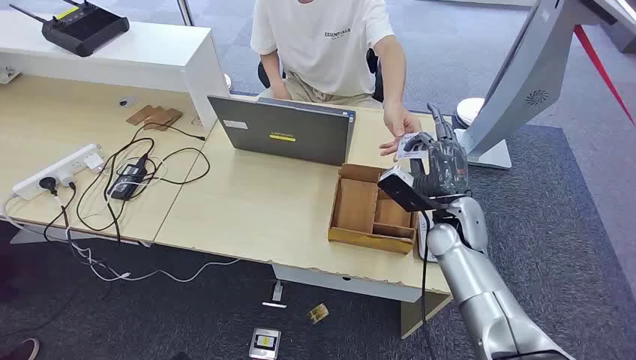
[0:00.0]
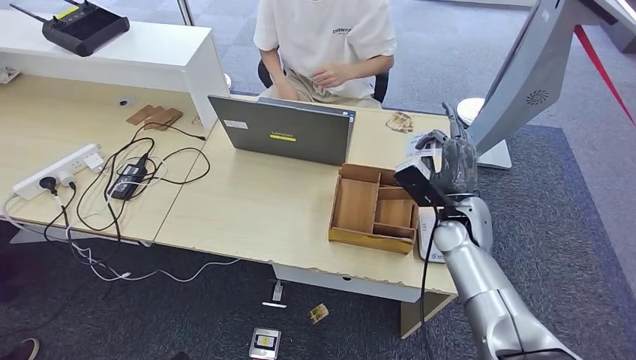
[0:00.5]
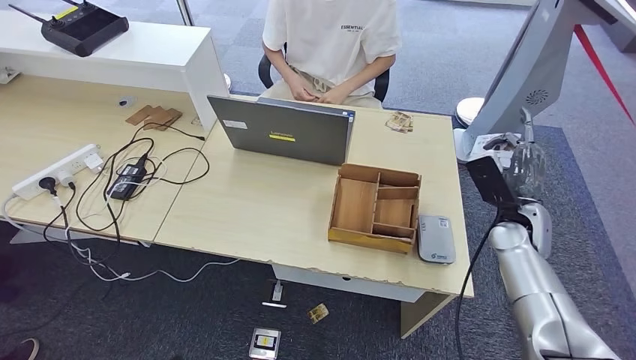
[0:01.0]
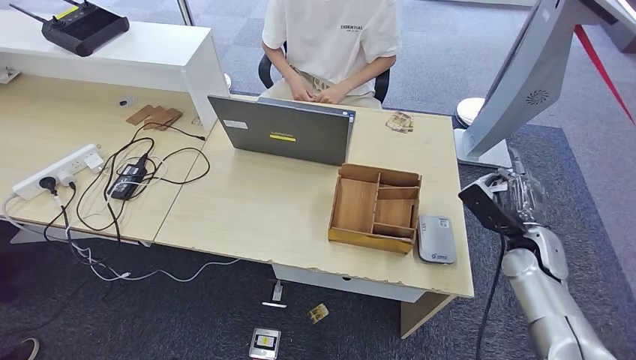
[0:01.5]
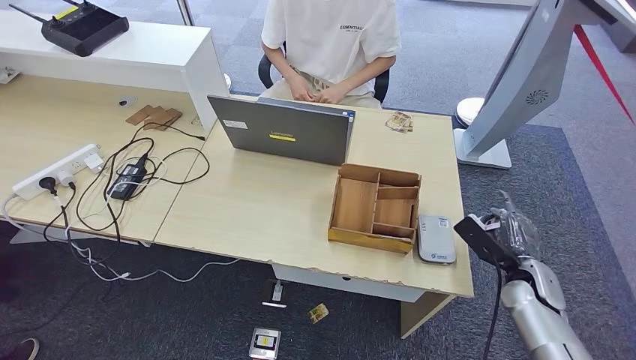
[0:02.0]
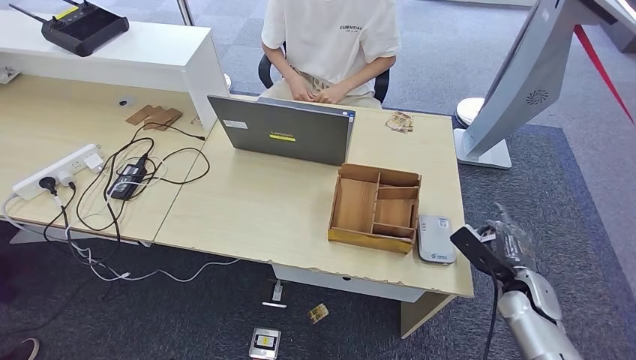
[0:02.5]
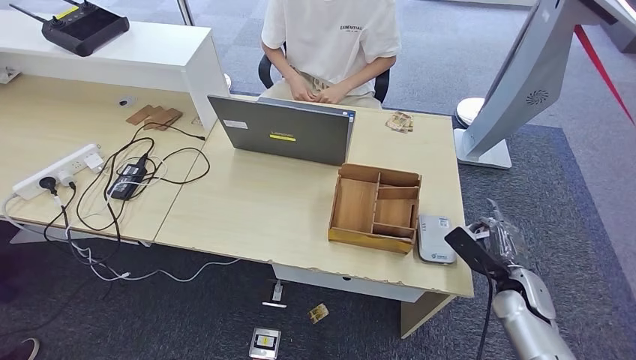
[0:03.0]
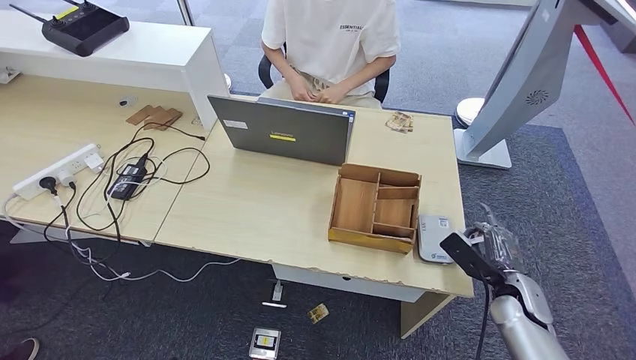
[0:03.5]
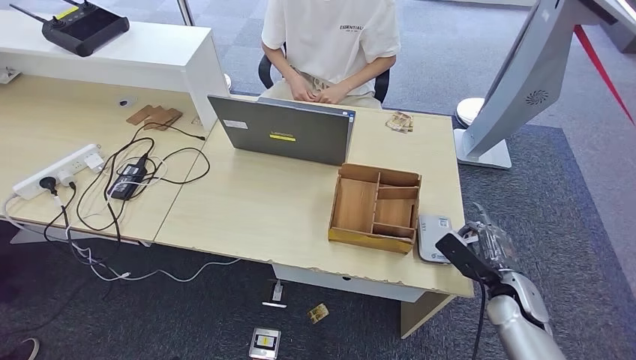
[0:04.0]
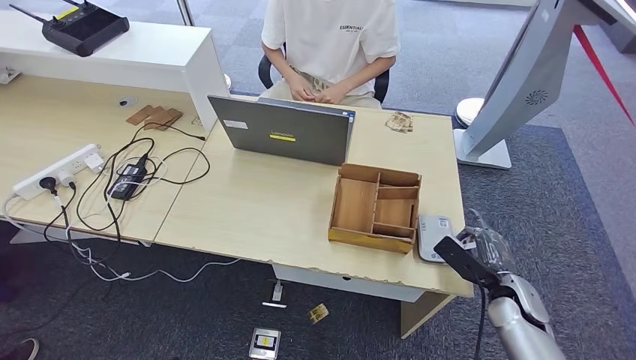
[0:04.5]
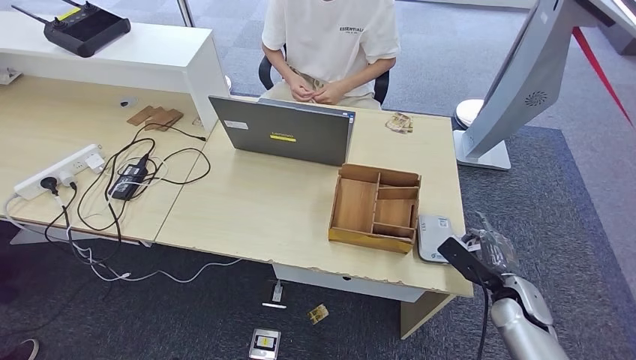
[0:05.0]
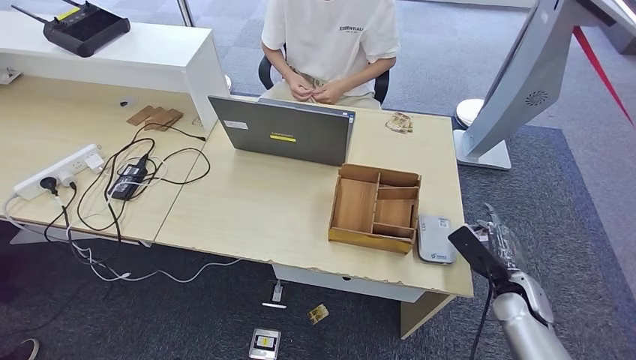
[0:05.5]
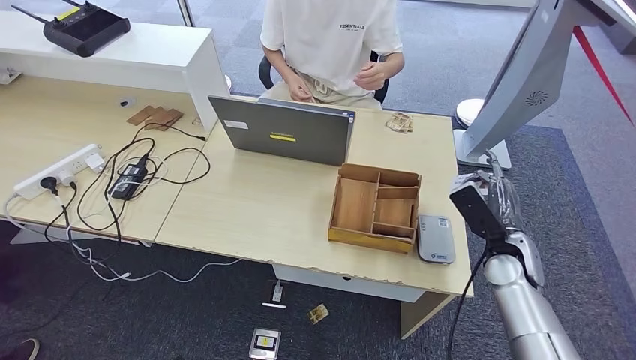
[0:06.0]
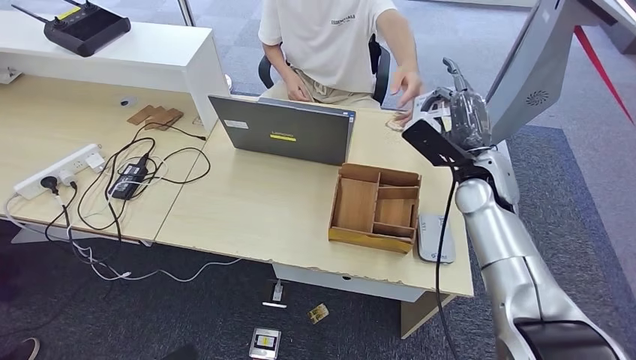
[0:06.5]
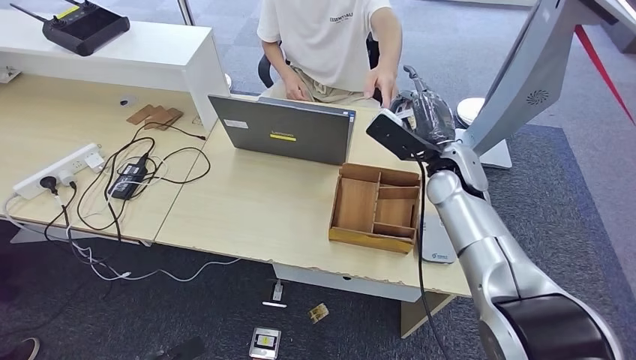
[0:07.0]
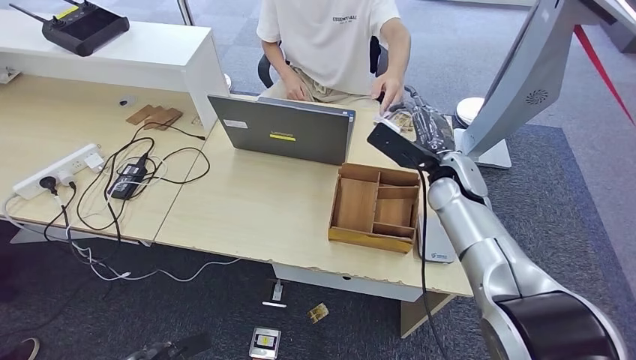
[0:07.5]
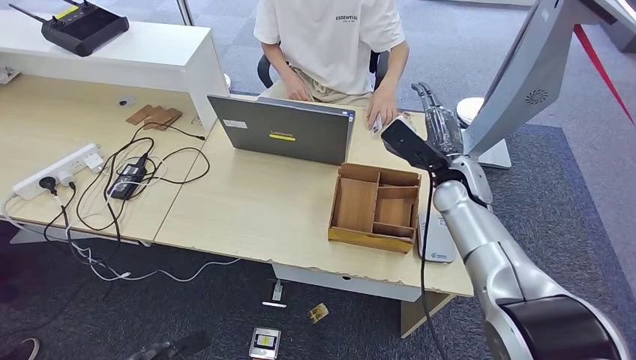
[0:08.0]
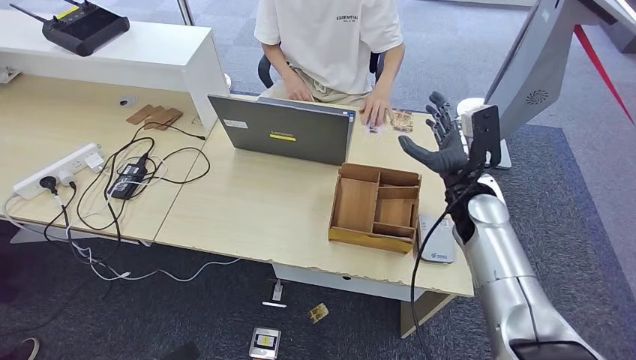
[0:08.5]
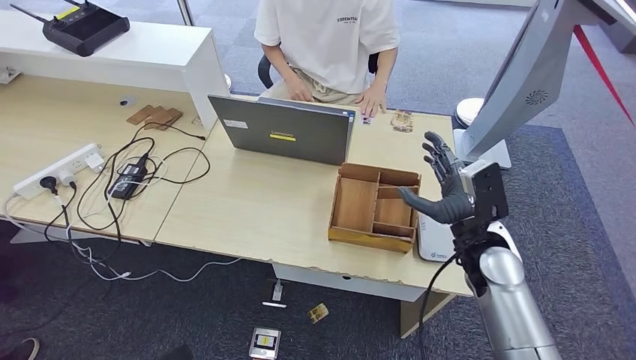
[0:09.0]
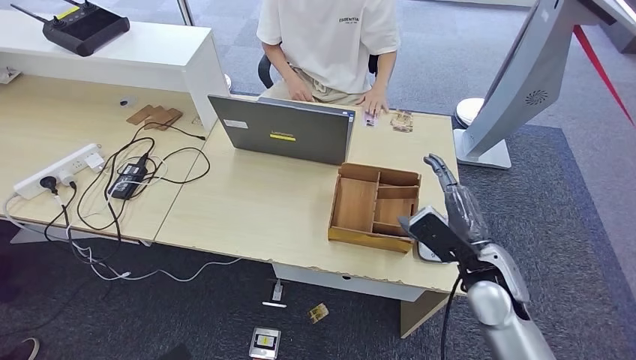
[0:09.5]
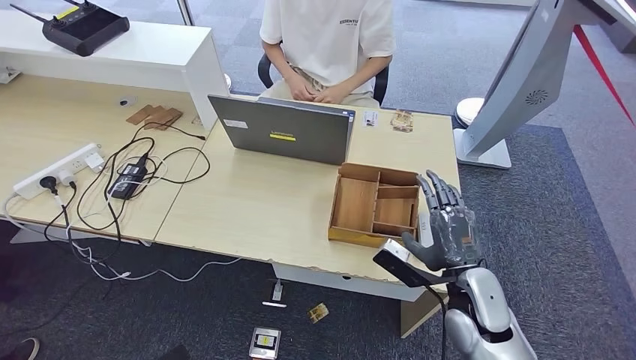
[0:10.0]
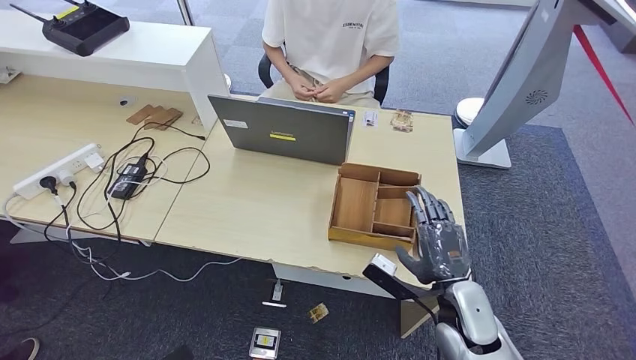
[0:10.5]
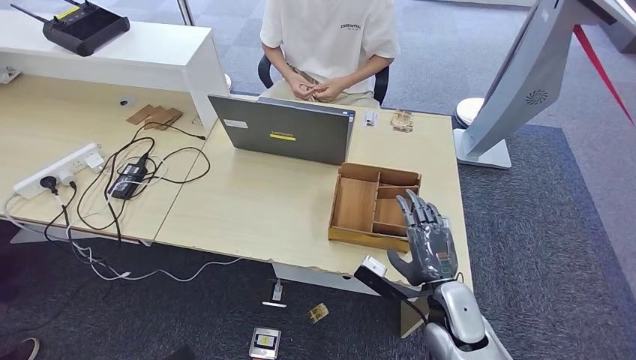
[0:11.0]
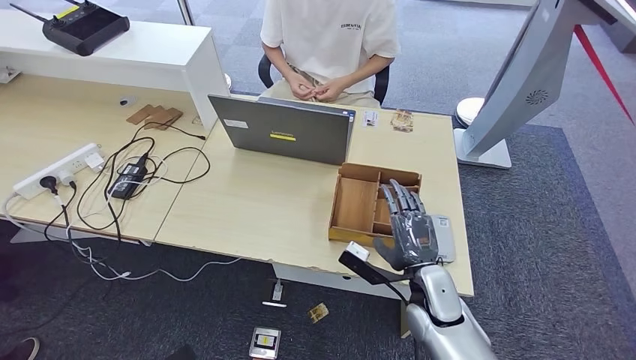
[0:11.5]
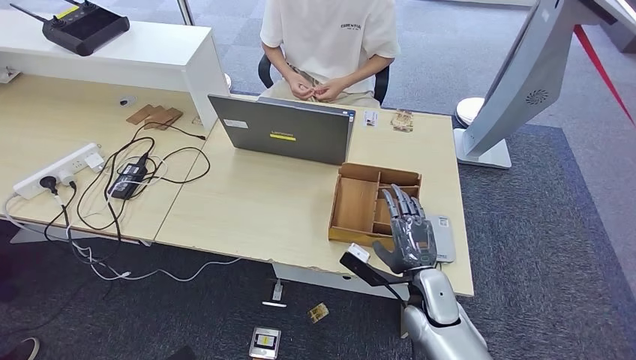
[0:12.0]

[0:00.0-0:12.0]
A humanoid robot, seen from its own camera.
Step, 0:00.0 to 0:01.5: Take the ID card from the person's hand.
Step, 0:02.0 to 0:05.0: Place the ID card on the card reader.
Step, 0:05.5 to 0:08.5: Hand the ID card to the person.
0:02.0 to 0:04.0: The hands make only small movements.
0:04.0 to 0:06.0: The right hand heads upward, covering approximately 5 cm.
0:06.0 to 0:08.0: The left hand moves forward, some 10 cm, while the right hand travels upward, to the left and forward by some 15 cm.
0:08.0 to 0:10.0: The left hand moves backward, about 5 cm; the right hand moves backward and downward, about 20 cm.
0:10.0 to 0:12.0: The right hand travels downward by roughly 5 cm.

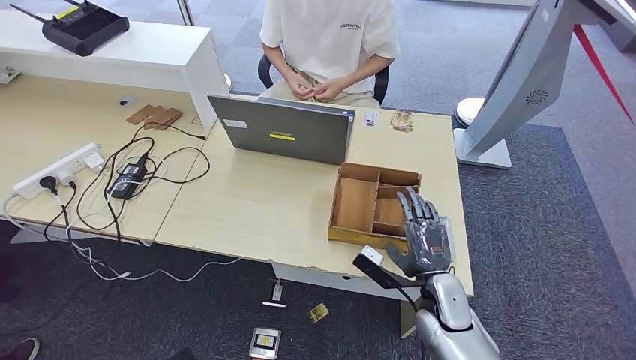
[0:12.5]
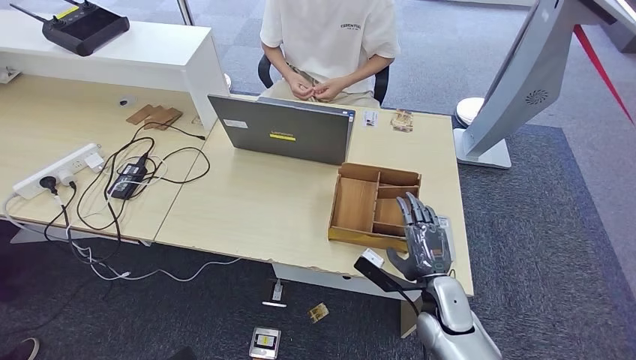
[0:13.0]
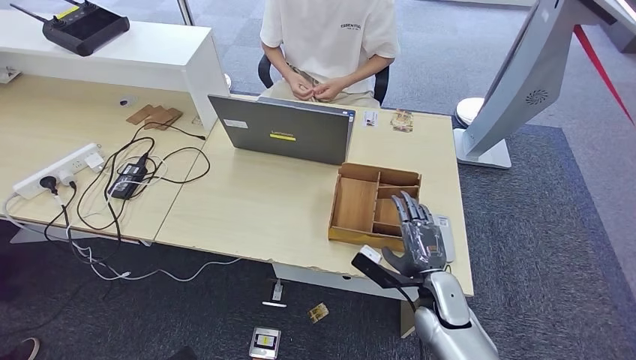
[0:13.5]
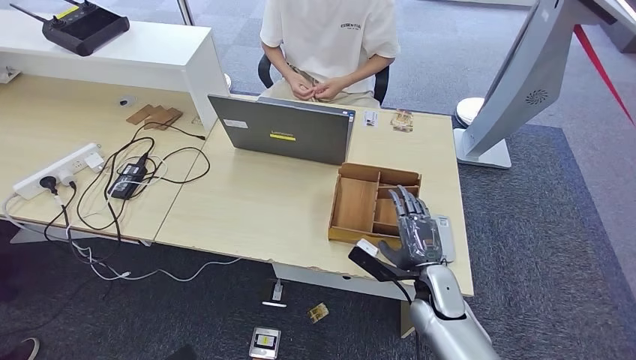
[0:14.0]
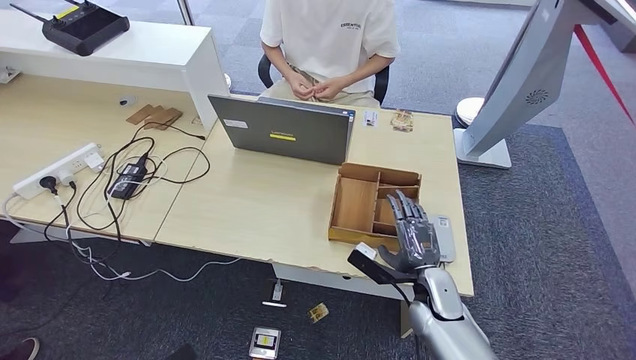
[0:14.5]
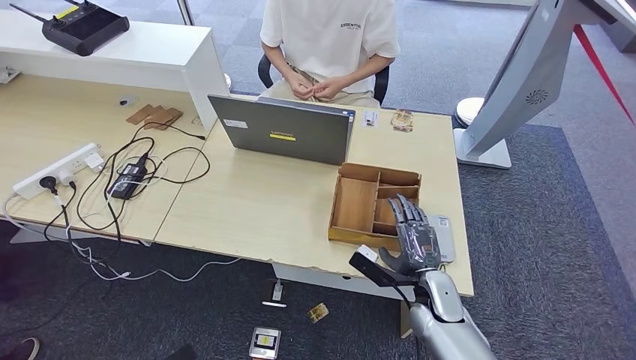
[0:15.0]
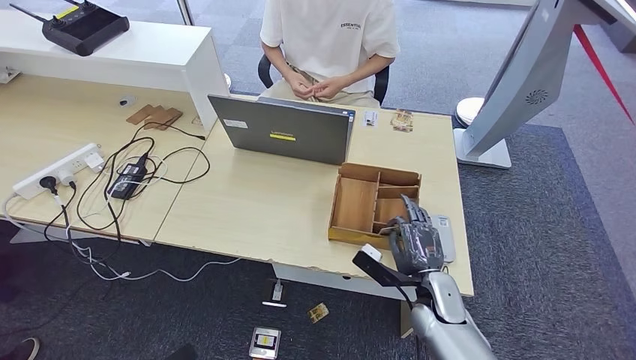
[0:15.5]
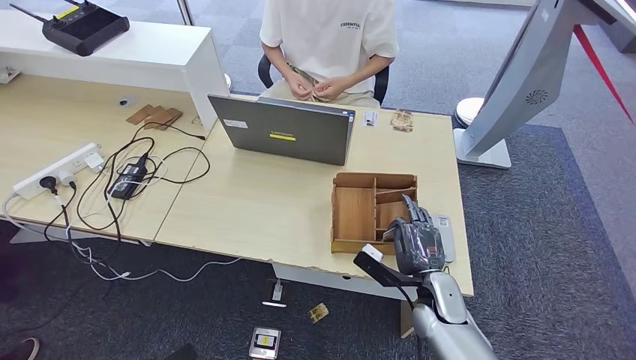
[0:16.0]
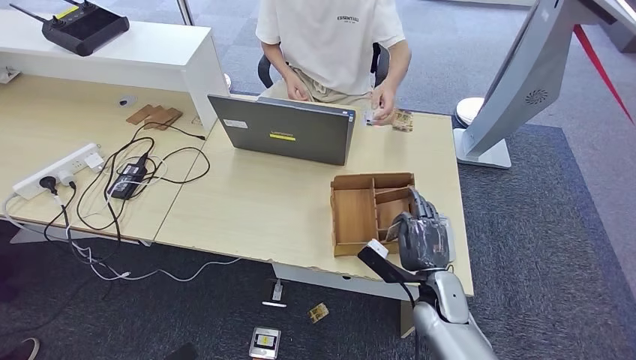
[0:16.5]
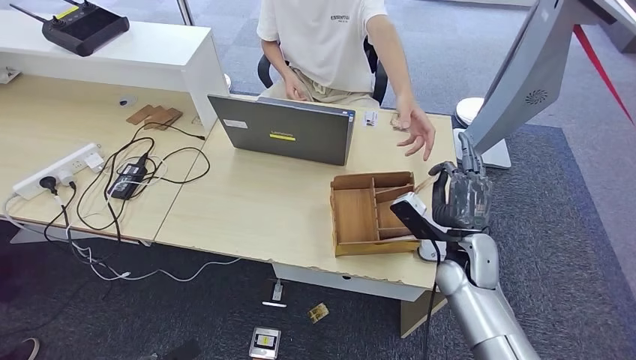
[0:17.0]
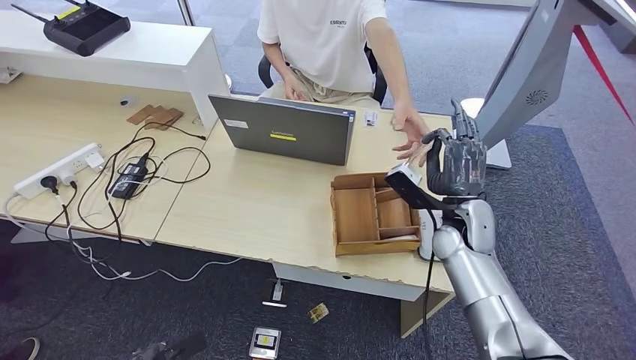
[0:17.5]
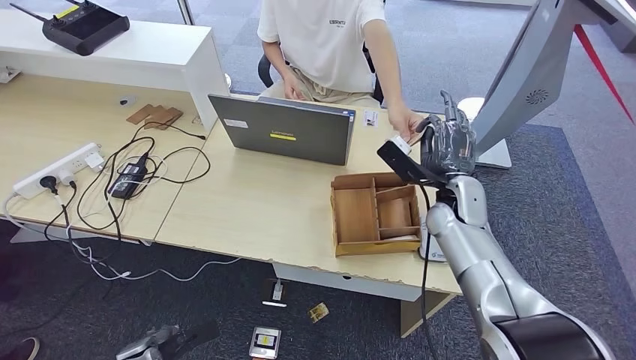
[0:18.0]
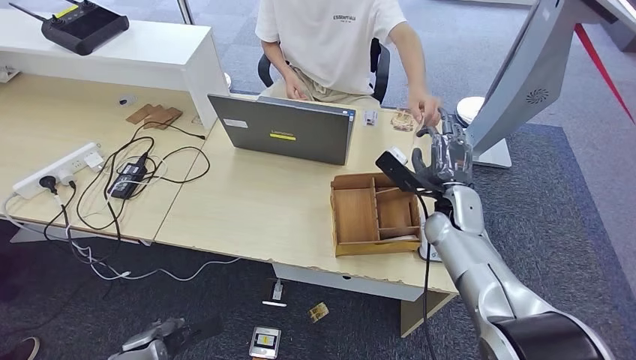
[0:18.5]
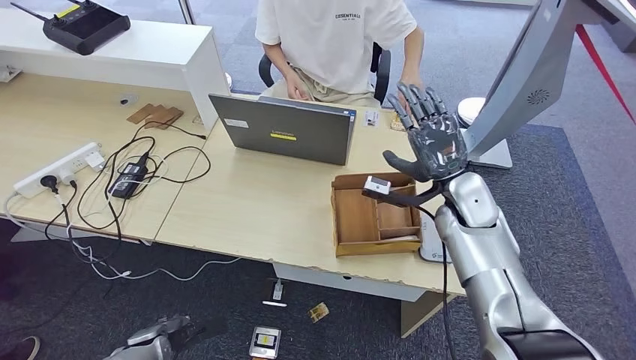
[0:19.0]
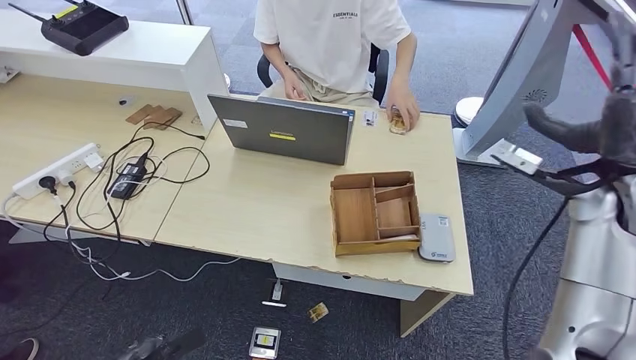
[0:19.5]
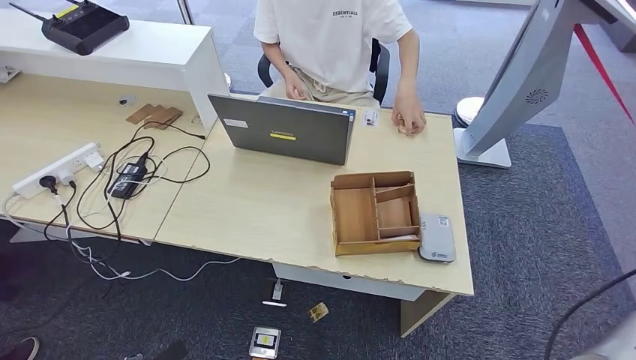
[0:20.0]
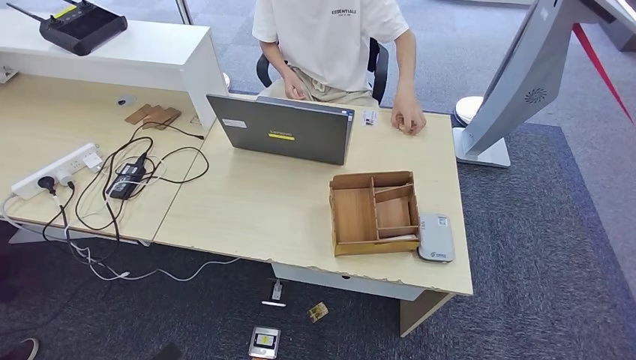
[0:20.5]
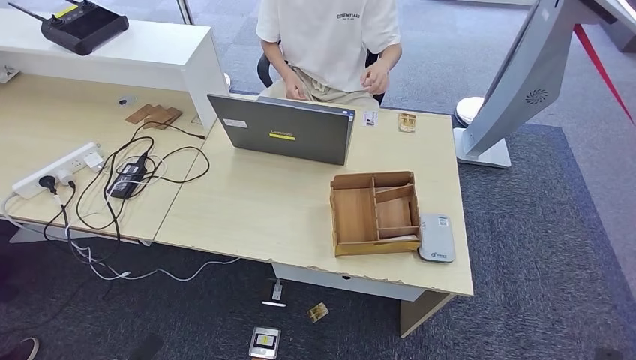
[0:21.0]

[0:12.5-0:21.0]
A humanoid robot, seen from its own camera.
Step, 0:12.5 to 0:17.0: Pick up the room key from the key card box.
Step, 0:18.0 to 0:21.0: Hand the room key to the person.
0:12.5 to 0:16.5: The hands make only small movements.
0:16.5 to 0:19.0: The left hand shifts some 10 cm forward. The right hand moves upward and forward, about 20 cm.
0:19.0 to 0:21.0: The right hand moves to the right, backward and downward, some 50 cm. The left hand goes approximately 15 cm backward and to the left.
